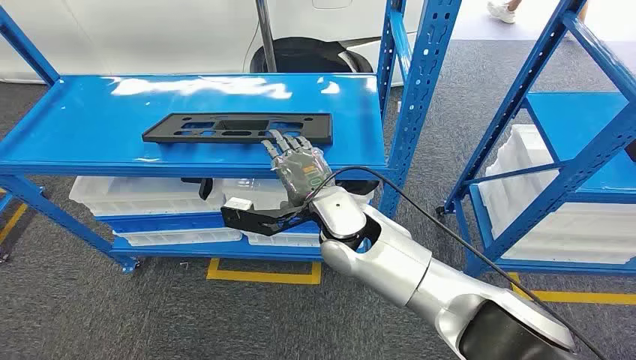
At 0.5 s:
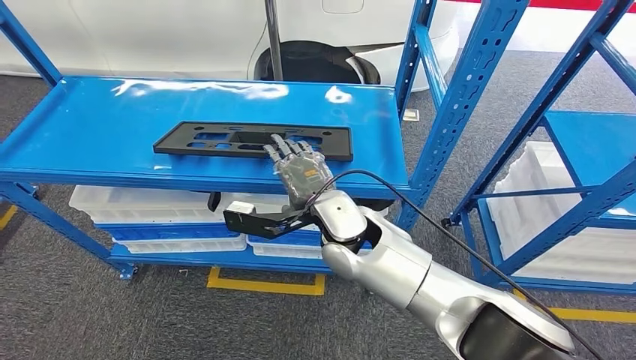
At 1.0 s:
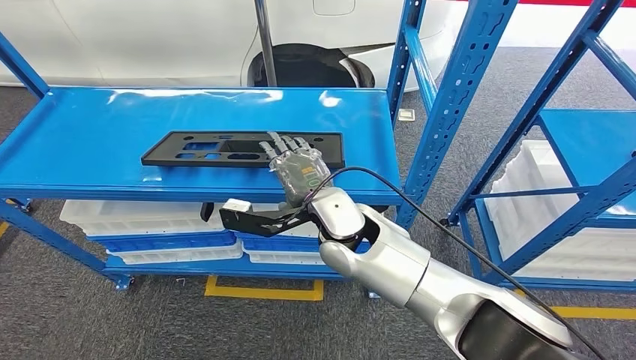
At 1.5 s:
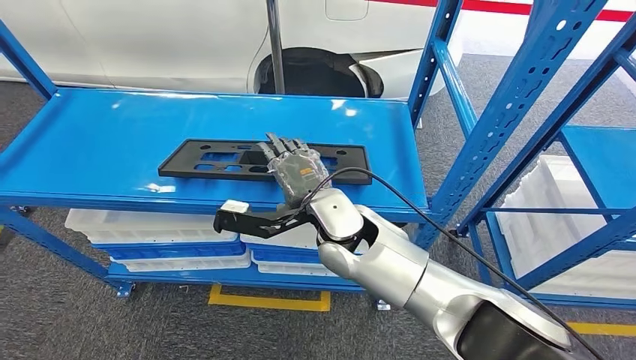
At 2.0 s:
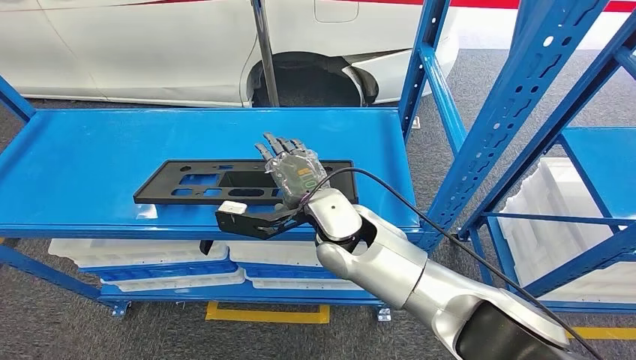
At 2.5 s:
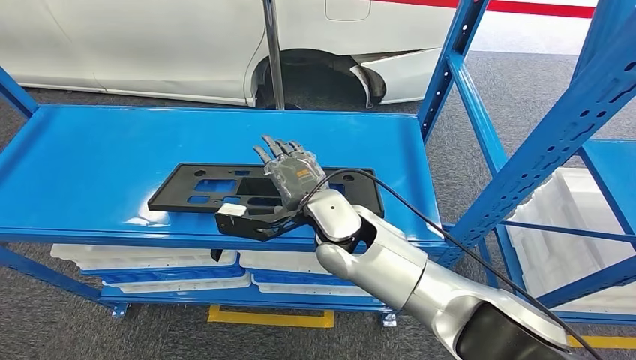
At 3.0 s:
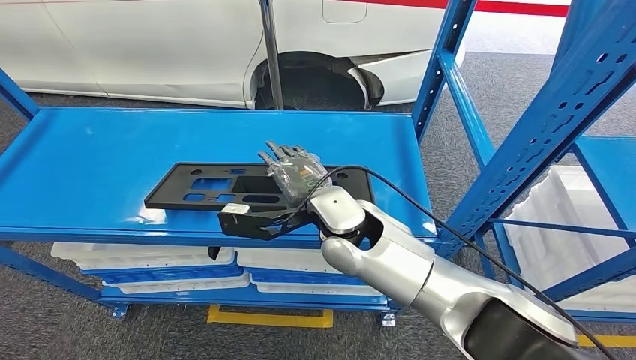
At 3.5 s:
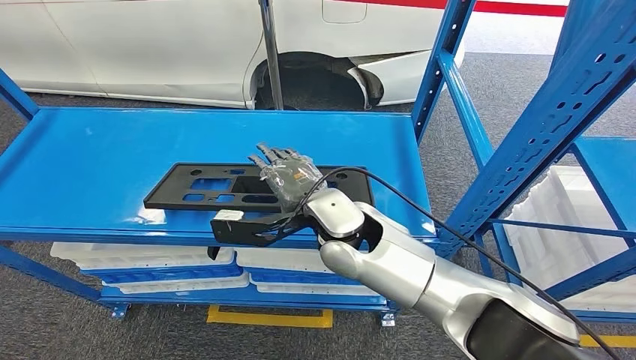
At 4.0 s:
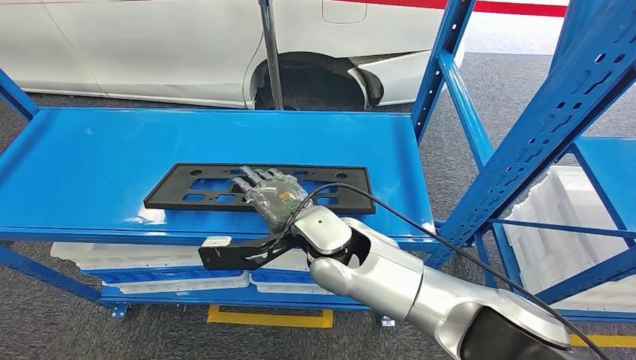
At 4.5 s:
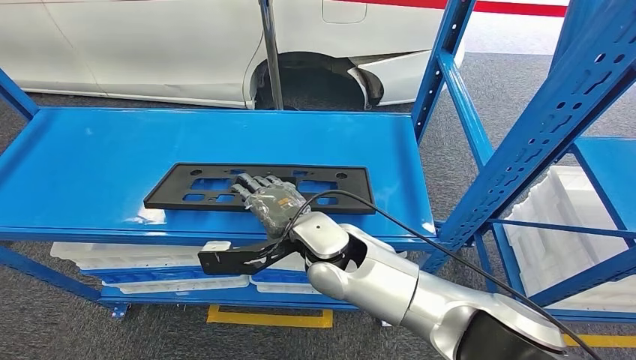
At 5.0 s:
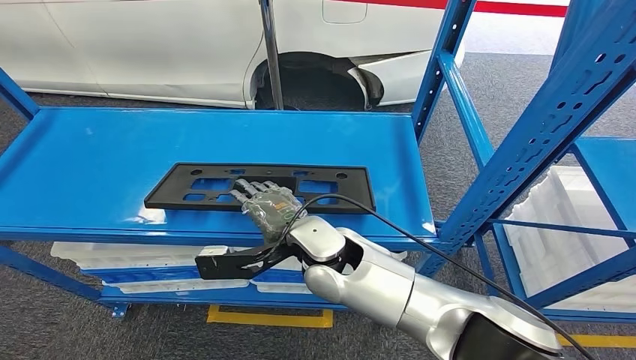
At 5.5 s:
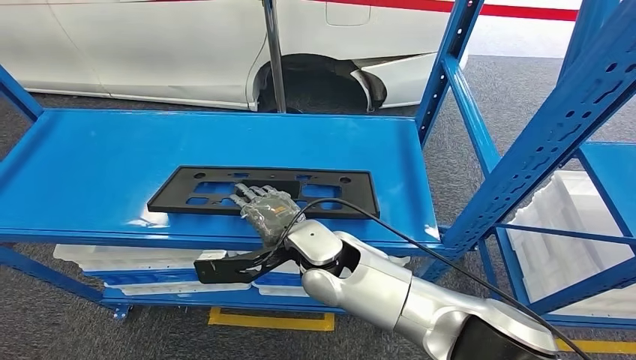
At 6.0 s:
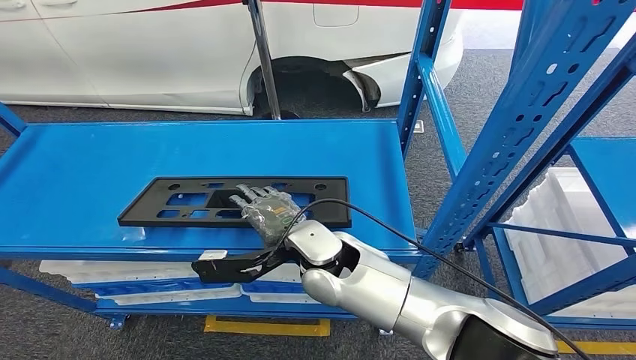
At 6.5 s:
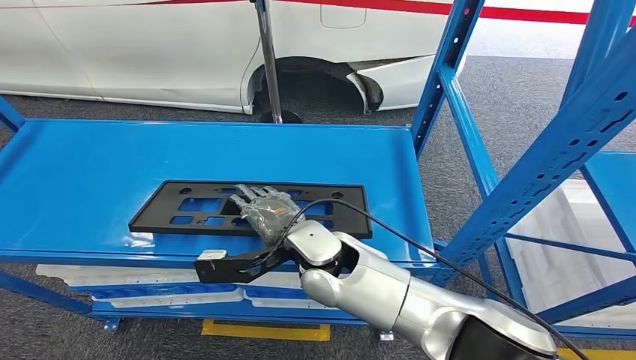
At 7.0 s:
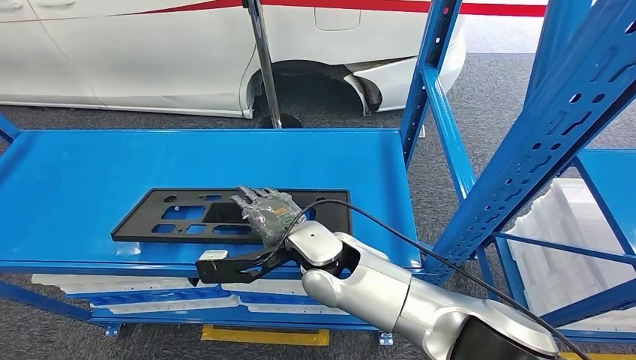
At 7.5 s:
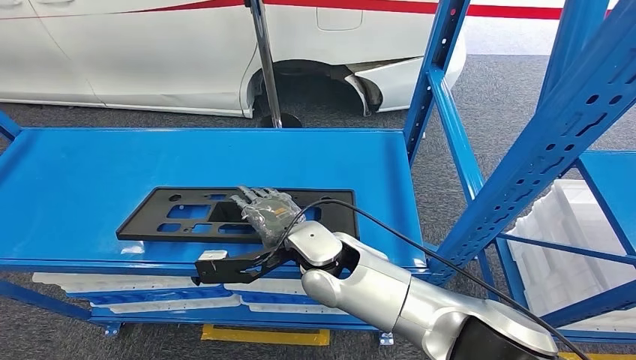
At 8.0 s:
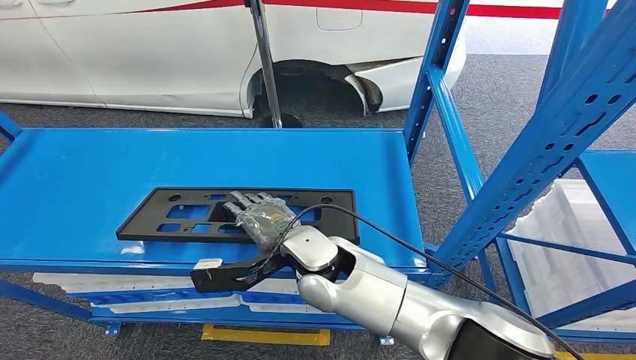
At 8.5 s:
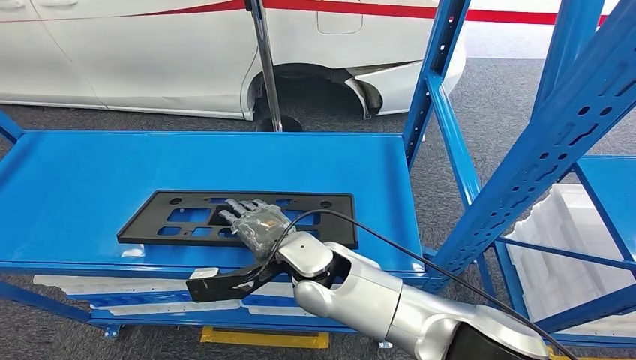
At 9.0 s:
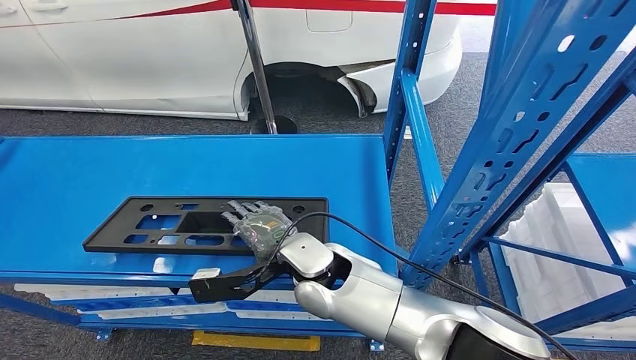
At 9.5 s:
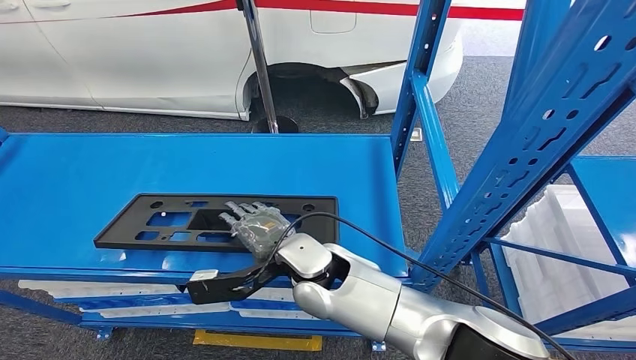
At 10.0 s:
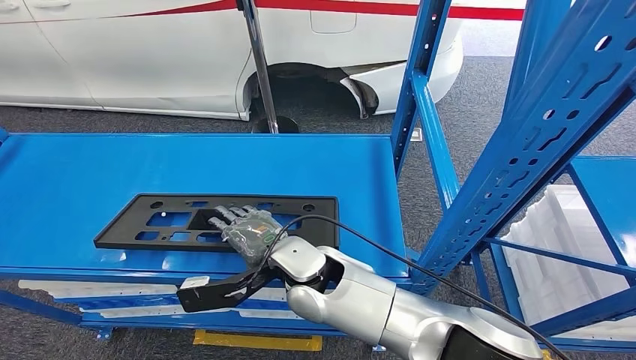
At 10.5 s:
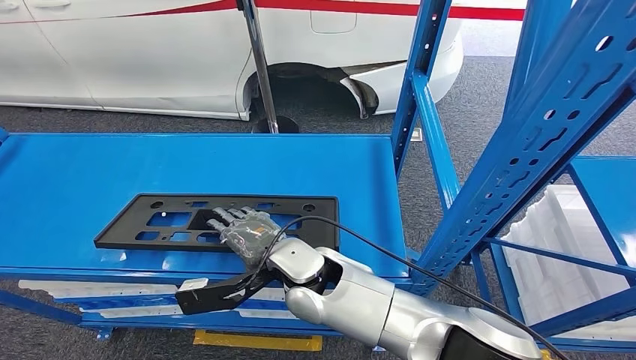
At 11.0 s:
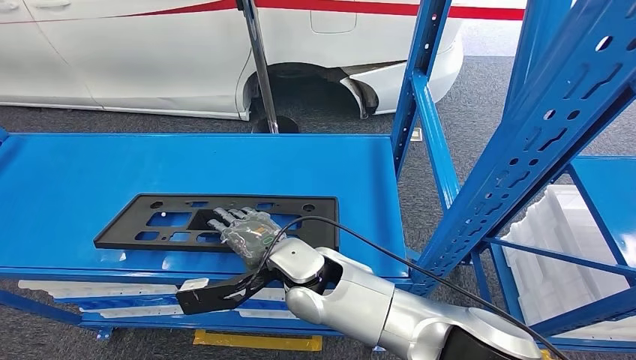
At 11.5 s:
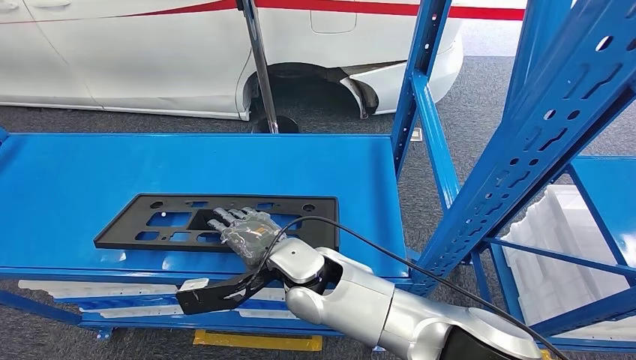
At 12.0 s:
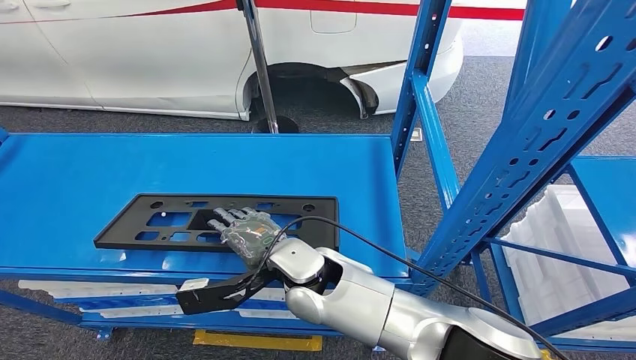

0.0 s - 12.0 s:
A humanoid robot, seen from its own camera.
10.0 s - 12.0 s: Neither hand changes place.

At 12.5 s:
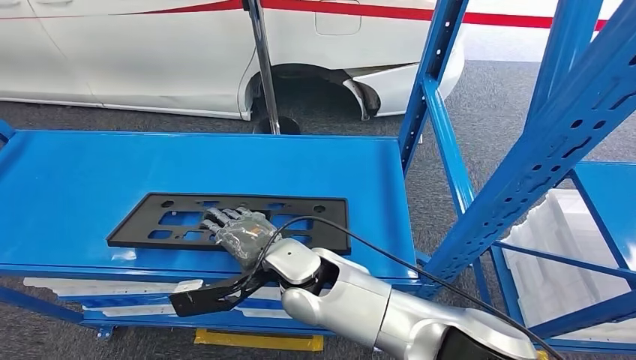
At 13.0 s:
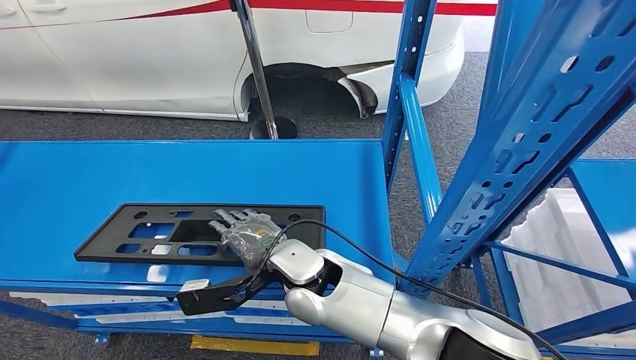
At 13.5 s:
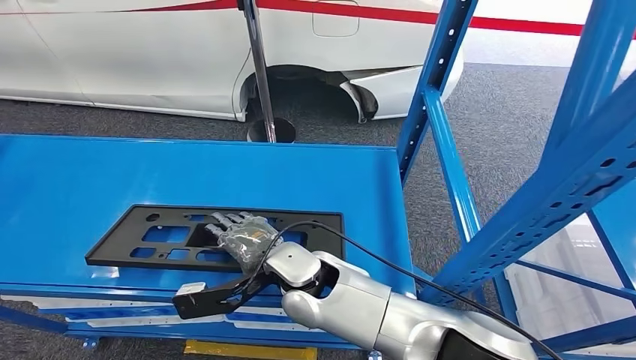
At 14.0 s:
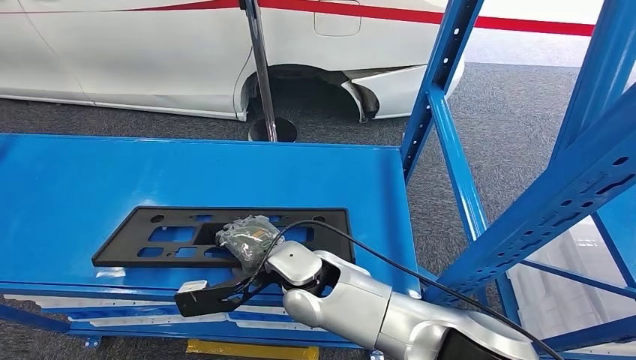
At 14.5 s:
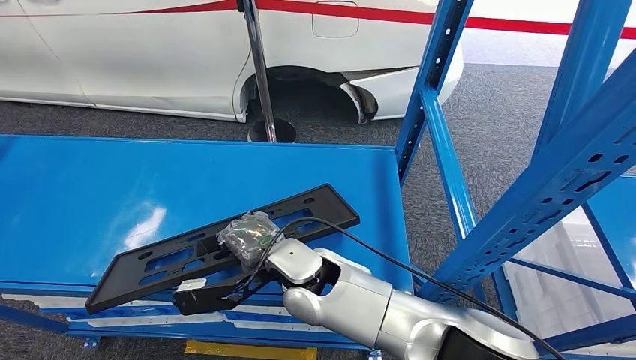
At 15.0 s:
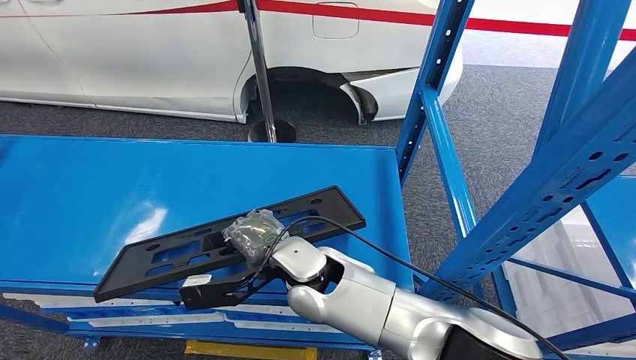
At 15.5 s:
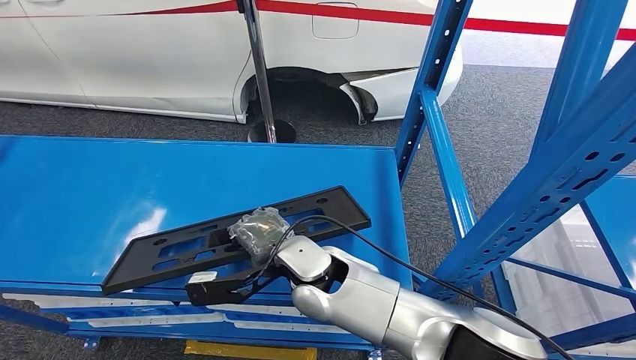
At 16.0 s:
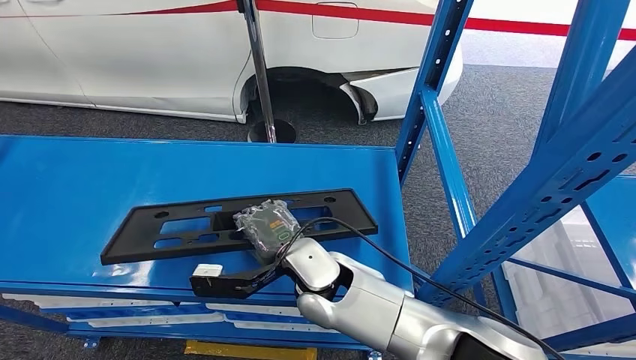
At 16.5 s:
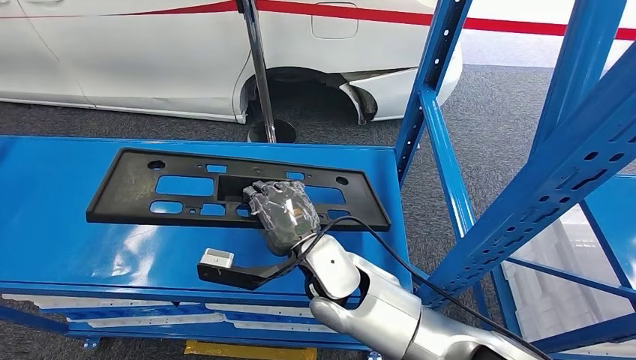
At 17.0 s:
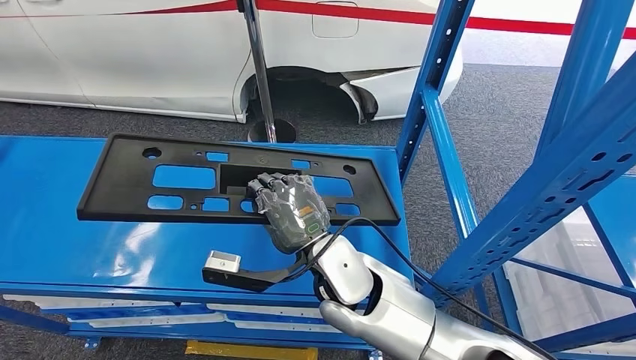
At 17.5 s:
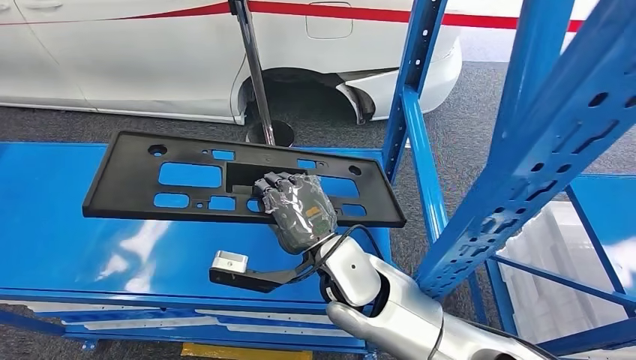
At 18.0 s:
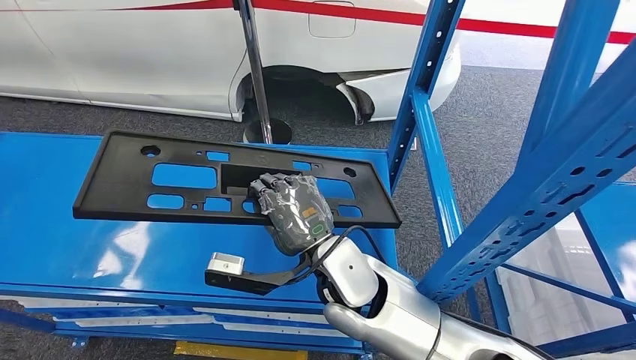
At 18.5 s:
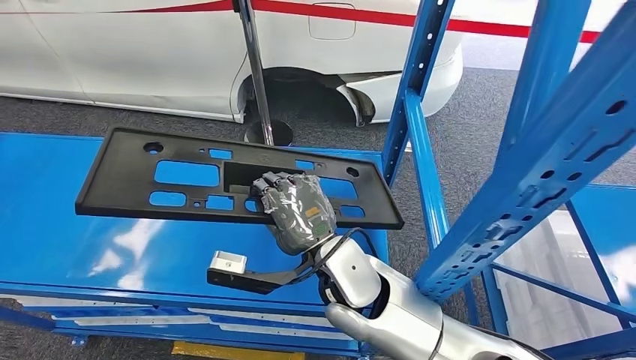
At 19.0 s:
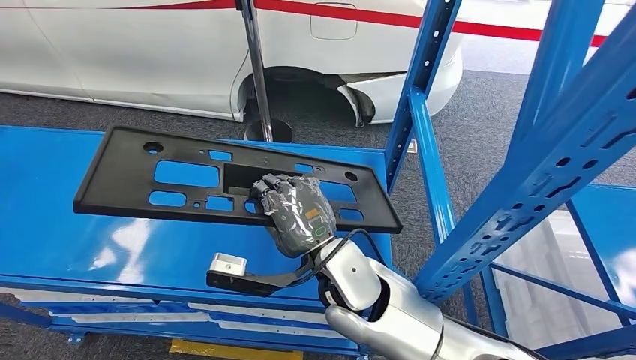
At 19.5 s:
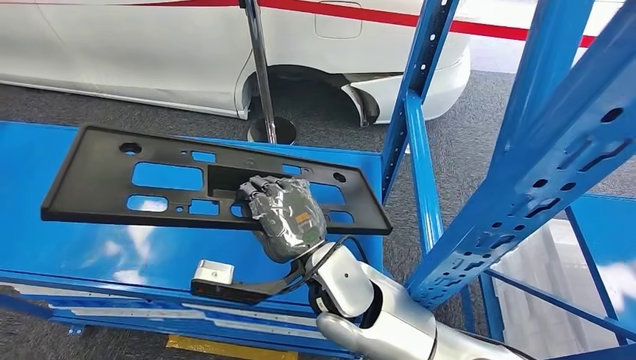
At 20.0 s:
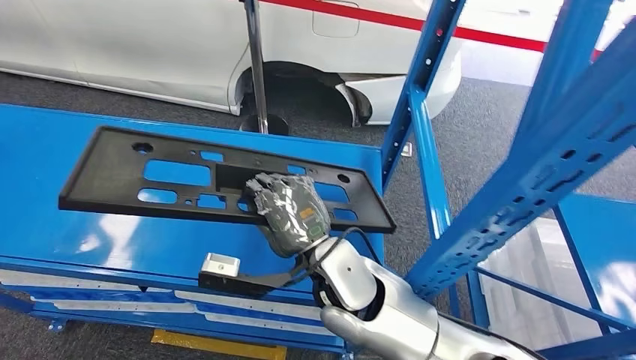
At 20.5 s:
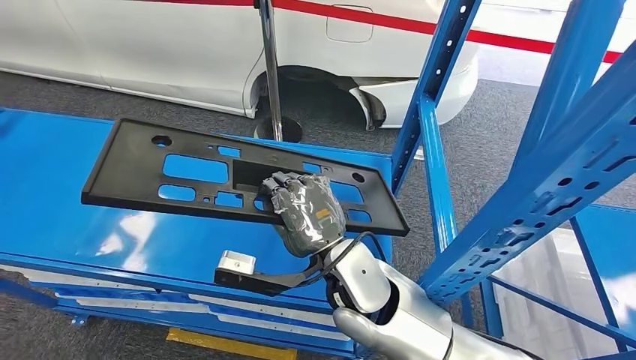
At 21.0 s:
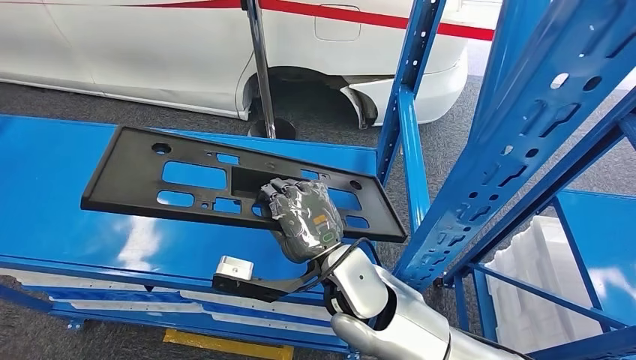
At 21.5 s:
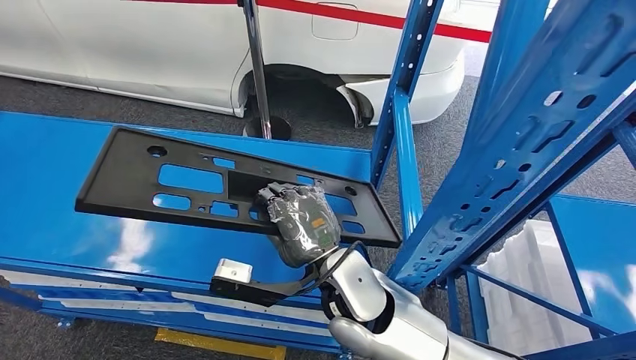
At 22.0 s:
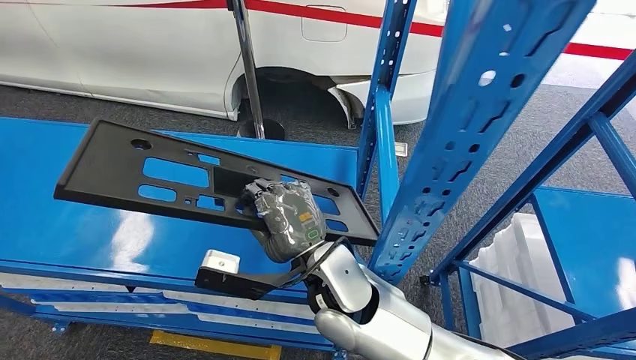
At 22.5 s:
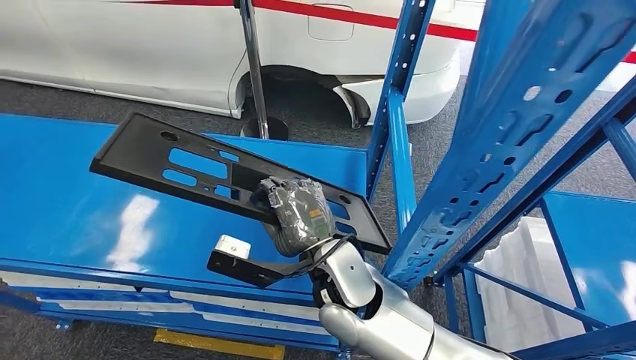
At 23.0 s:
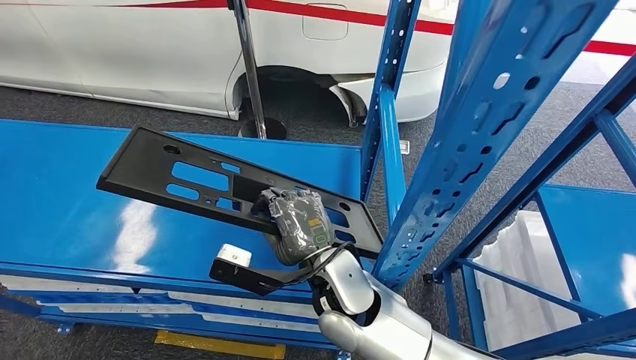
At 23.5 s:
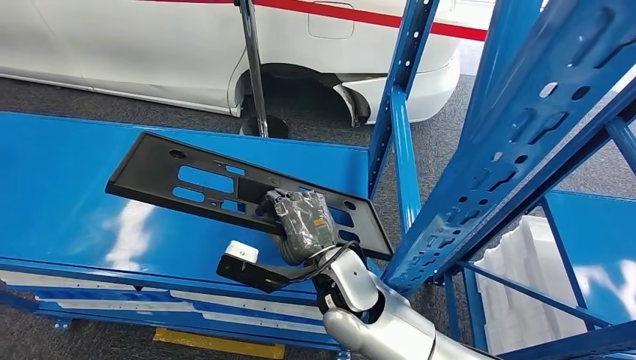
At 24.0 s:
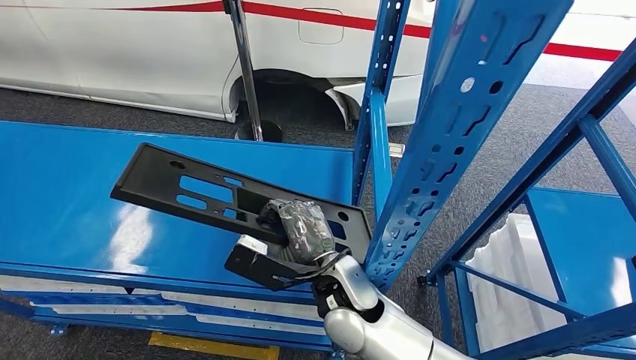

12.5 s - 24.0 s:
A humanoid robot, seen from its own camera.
Step, 12.5 s - 16.5 s: Pick up the large material from the shelf.
